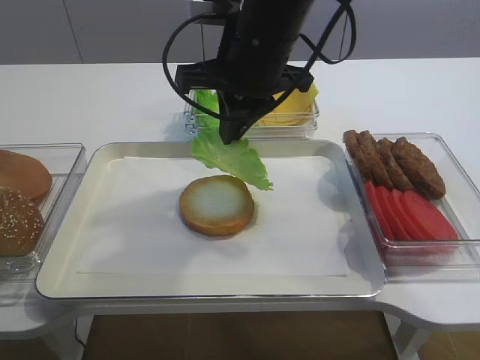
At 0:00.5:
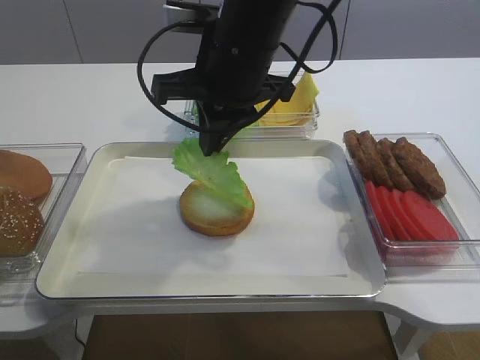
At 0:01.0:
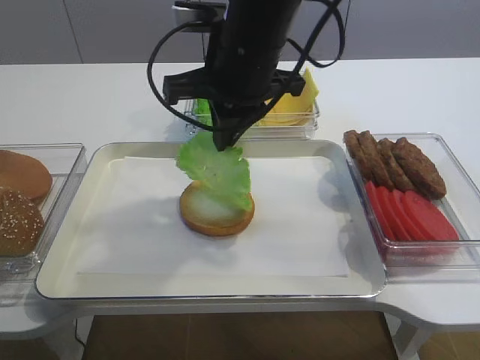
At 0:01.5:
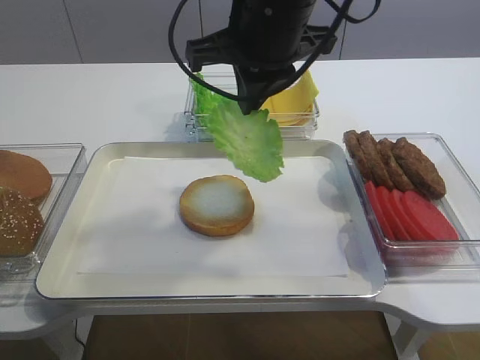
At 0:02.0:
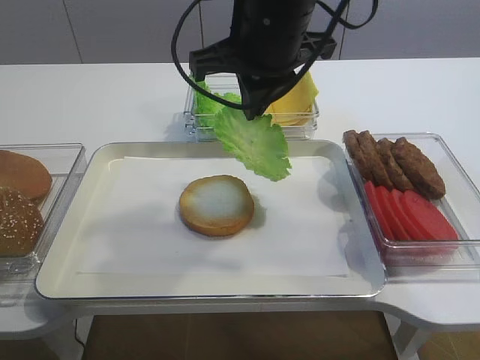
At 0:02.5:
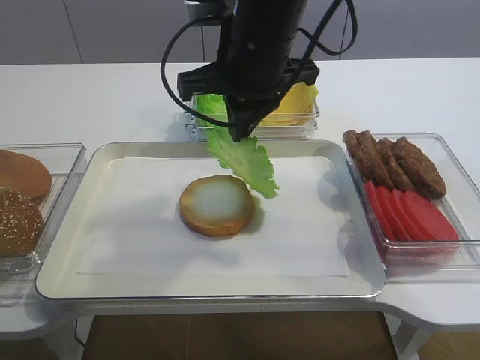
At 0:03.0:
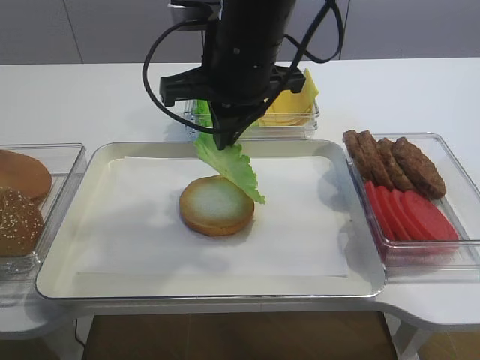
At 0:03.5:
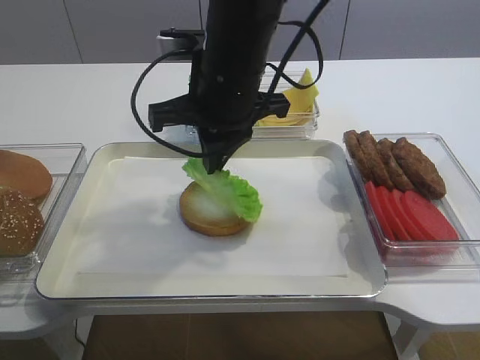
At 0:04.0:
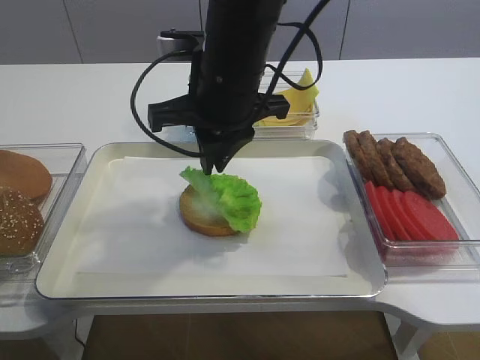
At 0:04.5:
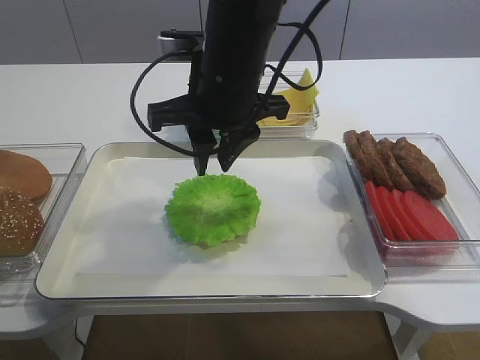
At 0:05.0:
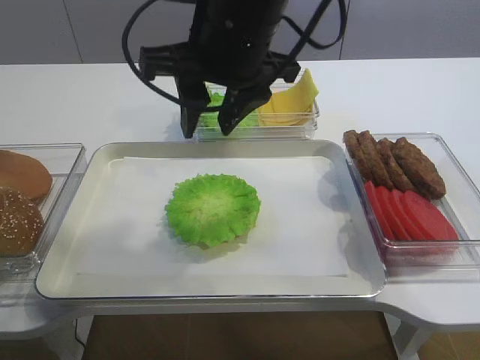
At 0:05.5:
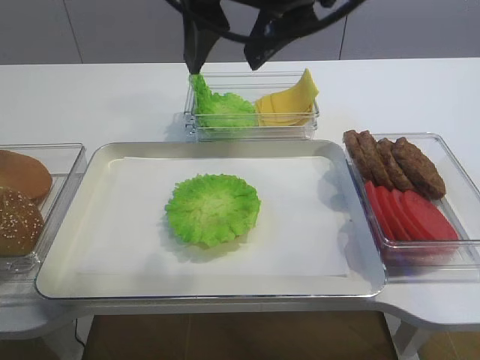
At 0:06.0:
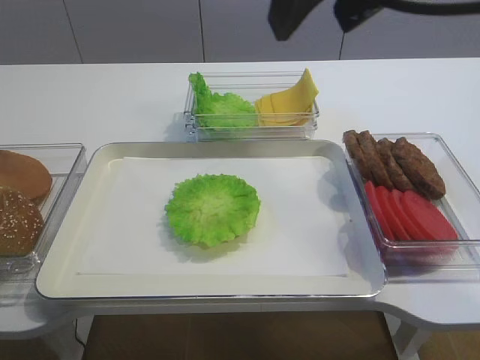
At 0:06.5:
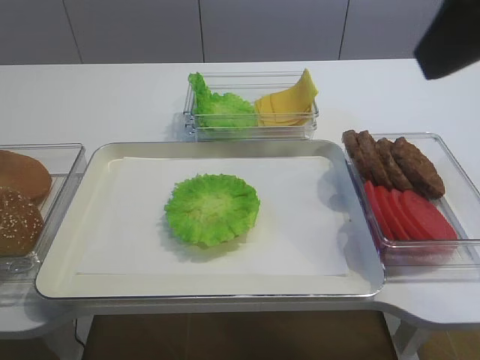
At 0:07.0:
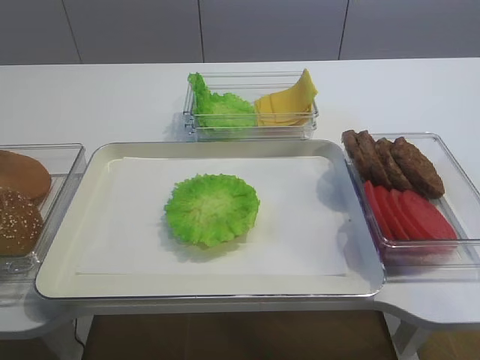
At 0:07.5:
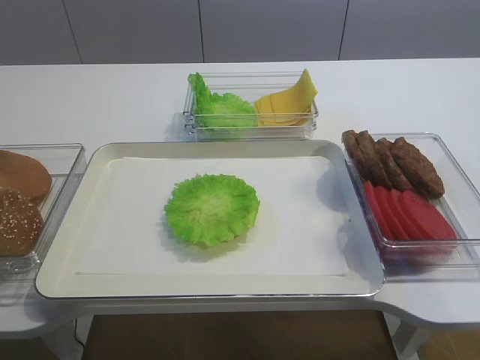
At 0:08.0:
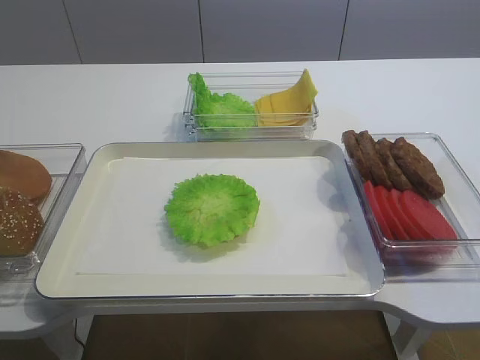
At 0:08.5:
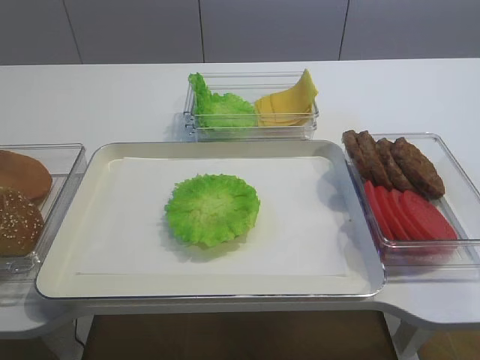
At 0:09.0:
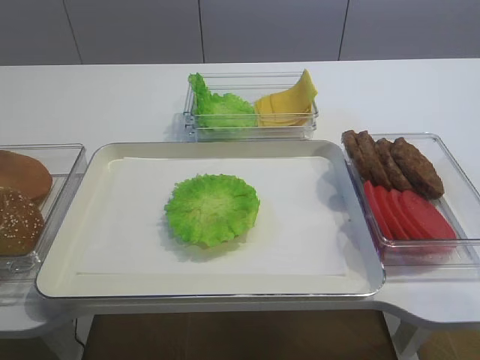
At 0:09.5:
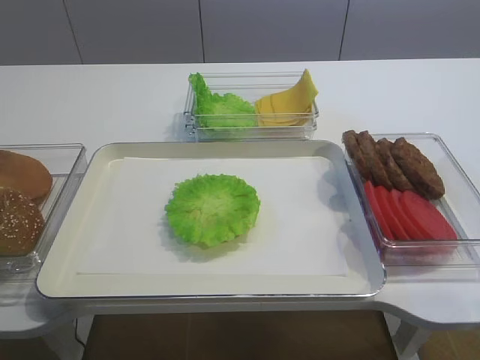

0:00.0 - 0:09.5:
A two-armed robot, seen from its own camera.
Step, 0:00.0 - 0:05.0: Place the lettuce leaf on the bread slice with the right gripper.
0:00.0 - 0:02.0: The grippers stay close to where they were, moving slightly.
0:02.0 - 0:04.0: The right gripper ends up roughly 5 cm from where it was.
0:04.0 - 0:05.5: The right gripper goes some 10 cm upward, and opens its fingers.
0:05.5 - 0:07.5: The right gripper is displaced to the right and backward by roughly 30 cm.
0:07.5 - 0:09.5: The right gripper is displaced downward and backward by approximately 15 cm.
